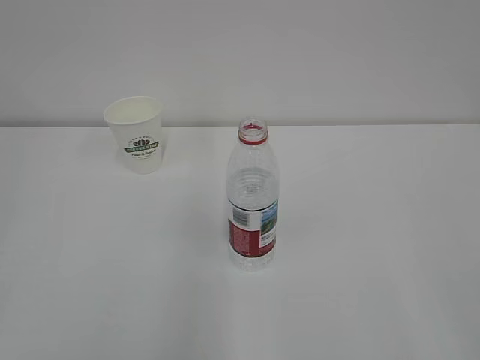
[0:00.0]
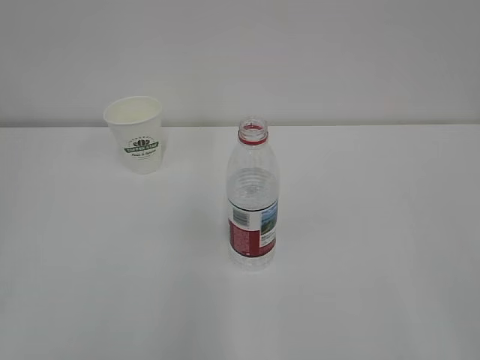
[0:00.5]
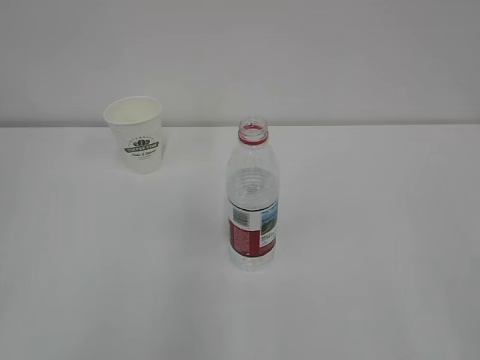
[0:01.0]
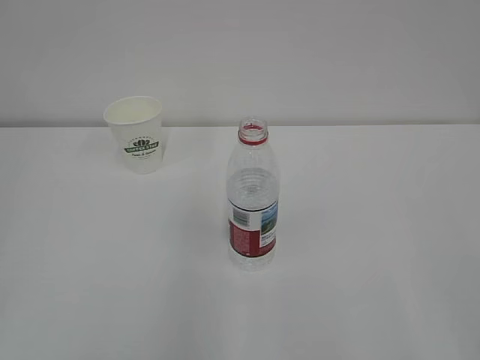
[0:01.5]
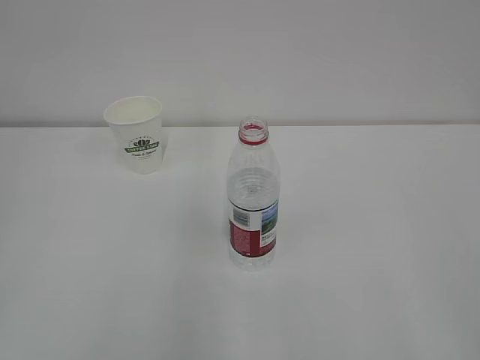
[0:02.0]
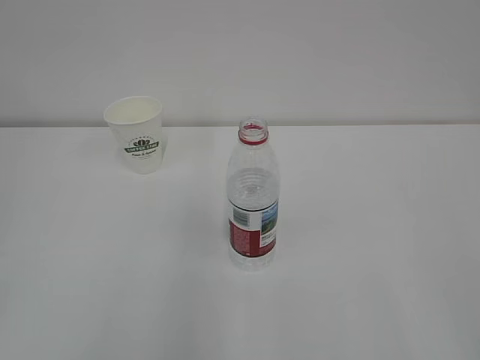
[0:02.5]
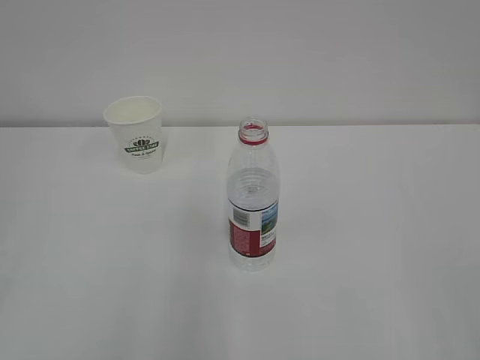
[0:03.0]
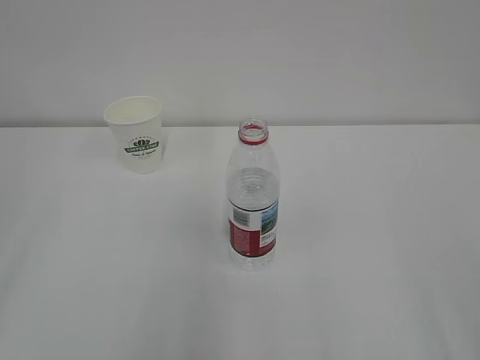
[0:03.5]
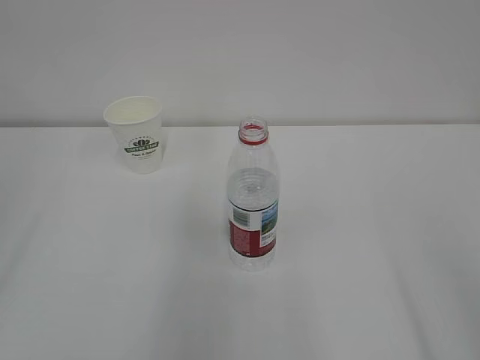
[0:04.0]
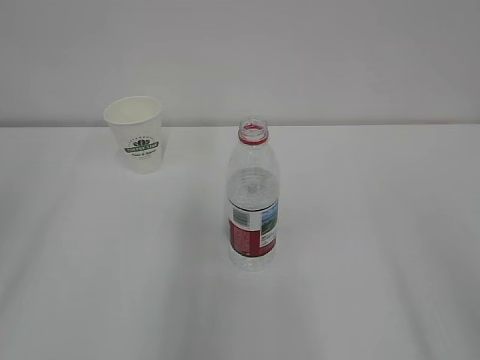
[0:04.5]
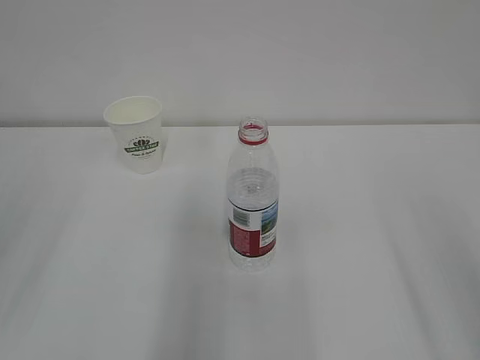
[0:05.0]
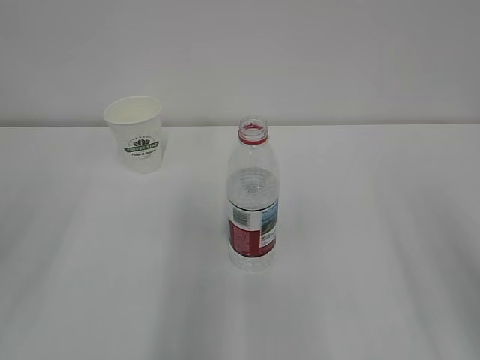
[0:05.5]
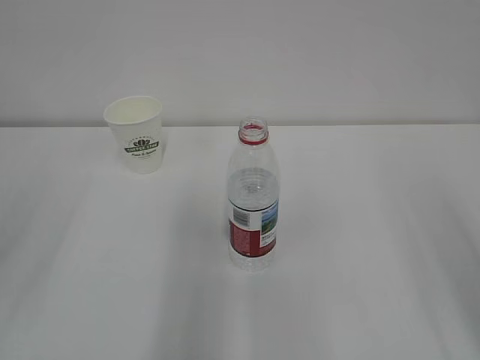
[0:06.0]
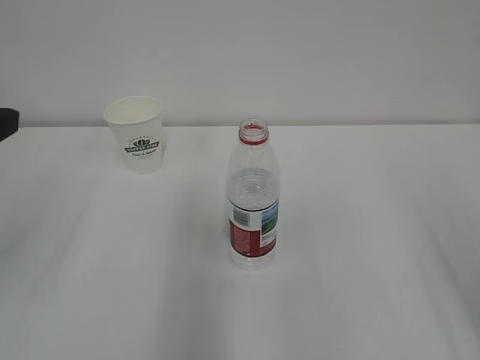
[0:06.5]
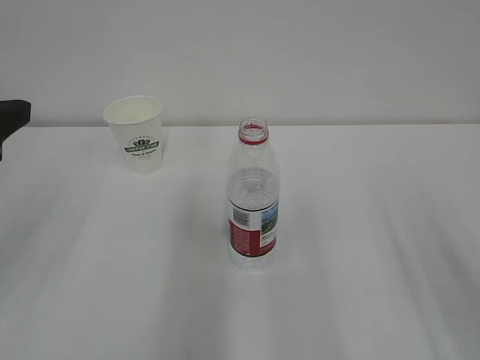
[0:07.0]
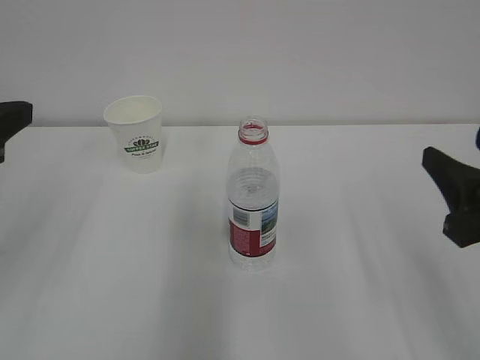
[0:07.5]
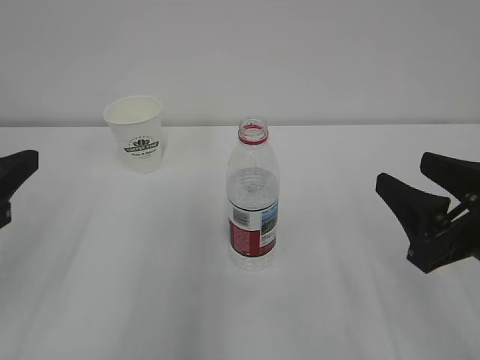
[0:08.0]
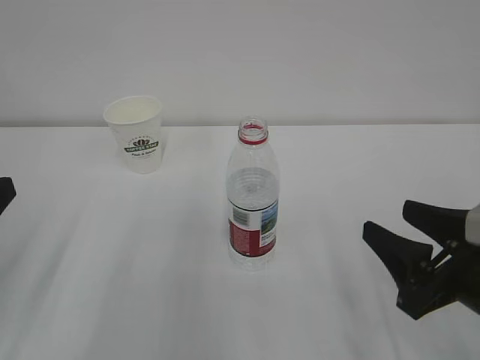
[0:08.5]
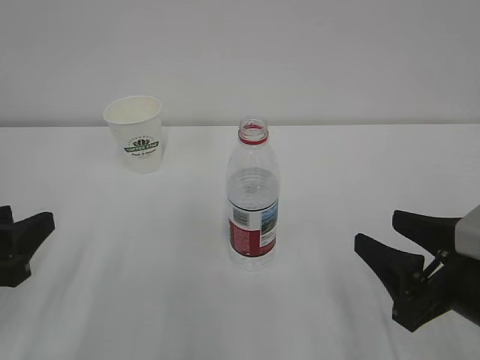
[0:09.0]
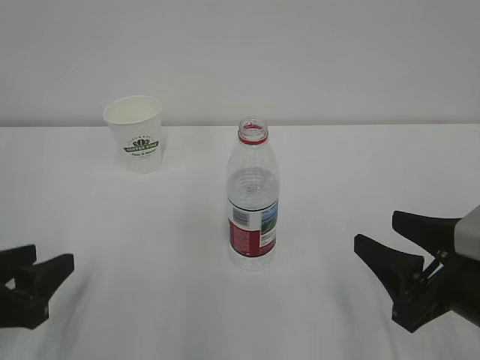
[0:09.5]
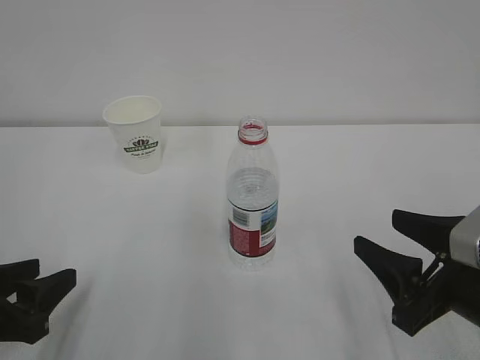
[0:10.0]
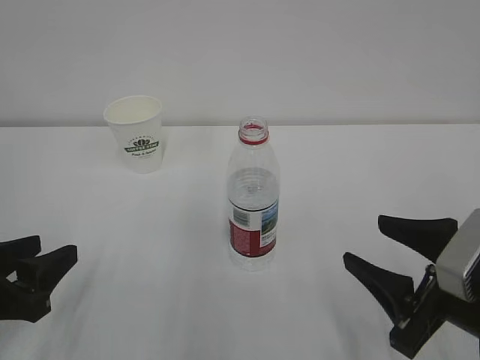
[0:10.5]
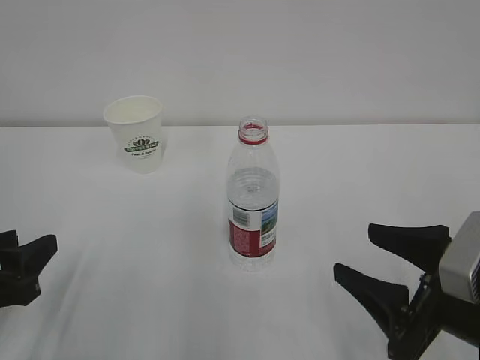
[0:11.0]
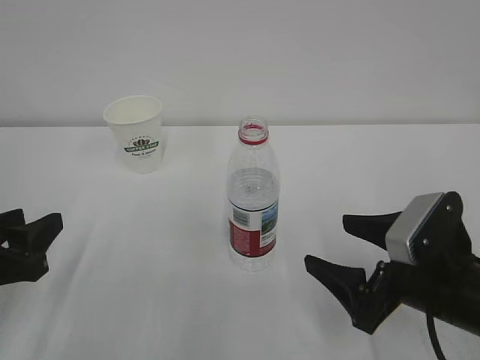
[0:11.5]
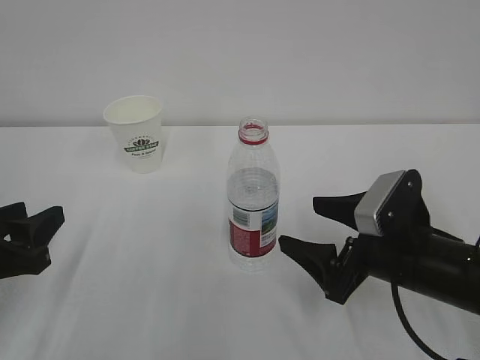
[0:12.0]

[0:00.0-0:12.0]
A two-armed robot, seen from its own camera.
0:06.0 to 0:08.0: The left gripper shifts about 5 cm downward. The right gripper heads downward and to the left, covering approximately 15 cm.
0:08.0 to 0:10.0: The right gripper changes place by roughly 5 cm. The left gripper moves downward, roughly 15 cm.
0:10.0 to 0:12.0: The right gripper is displaced forward by about 5 cm, and opens its fingers.

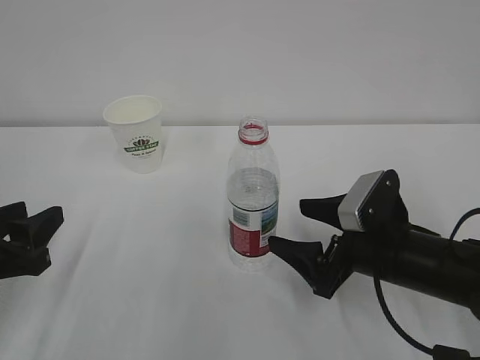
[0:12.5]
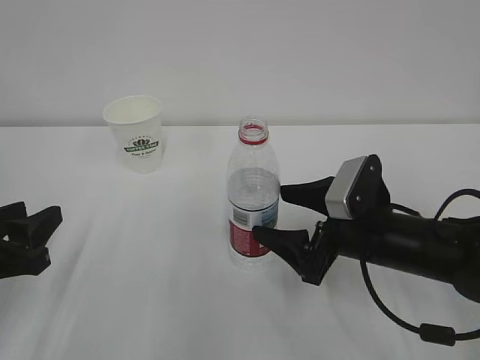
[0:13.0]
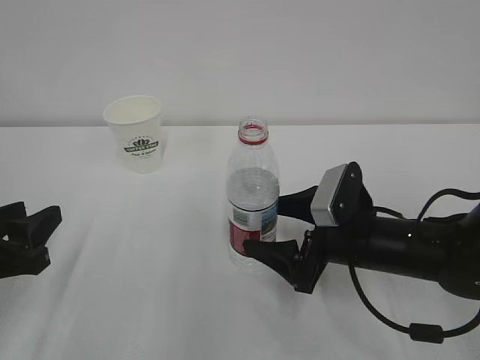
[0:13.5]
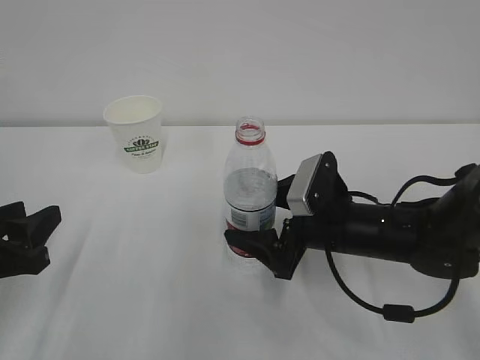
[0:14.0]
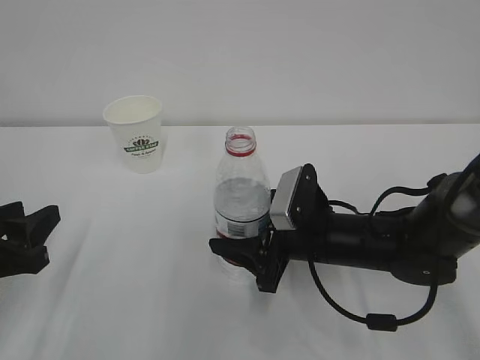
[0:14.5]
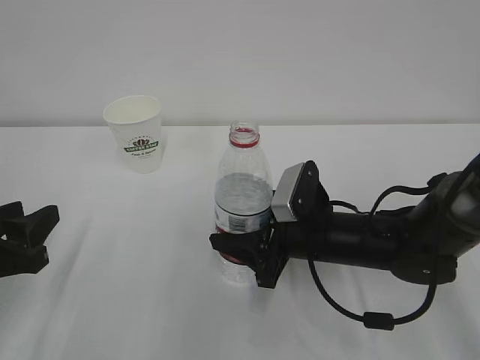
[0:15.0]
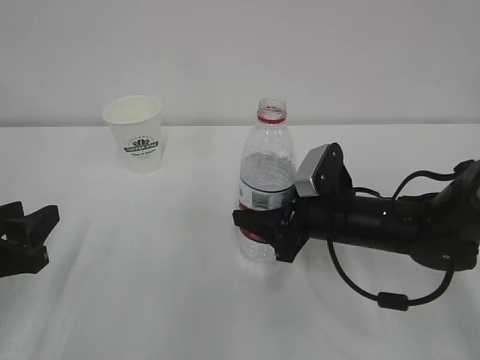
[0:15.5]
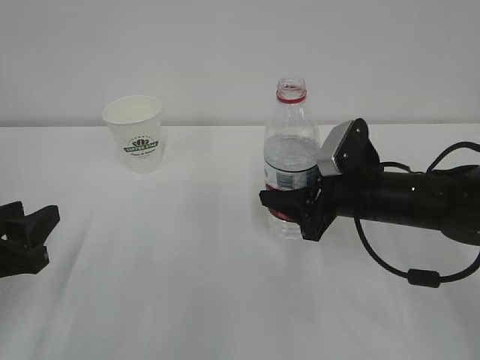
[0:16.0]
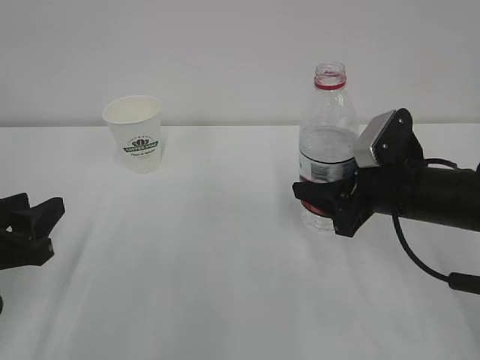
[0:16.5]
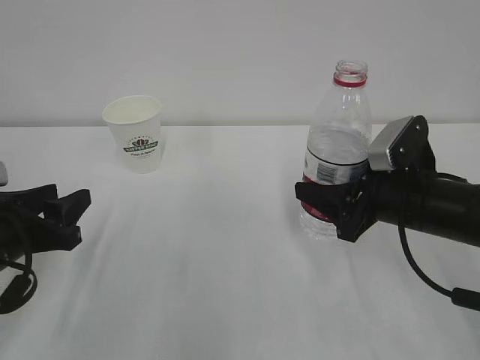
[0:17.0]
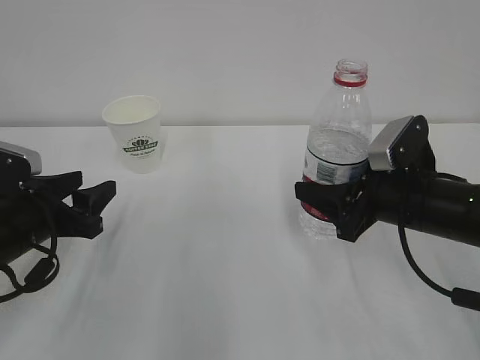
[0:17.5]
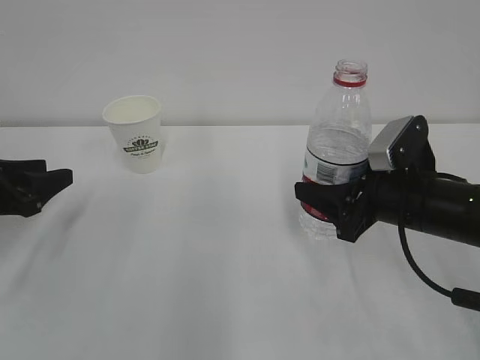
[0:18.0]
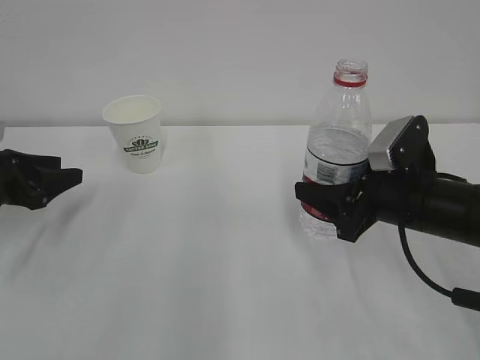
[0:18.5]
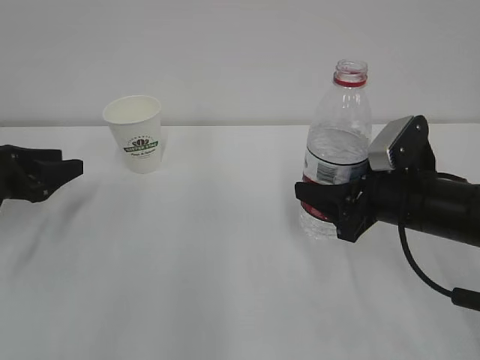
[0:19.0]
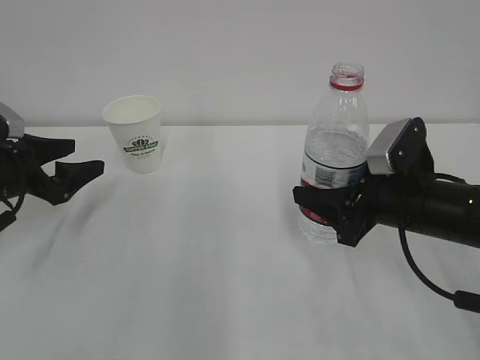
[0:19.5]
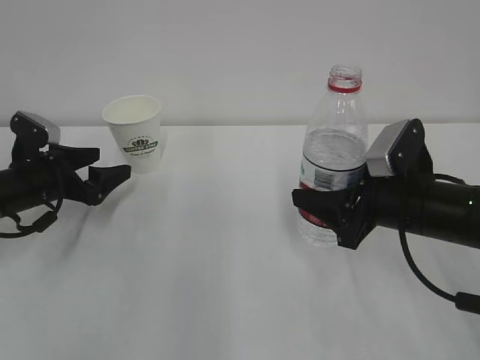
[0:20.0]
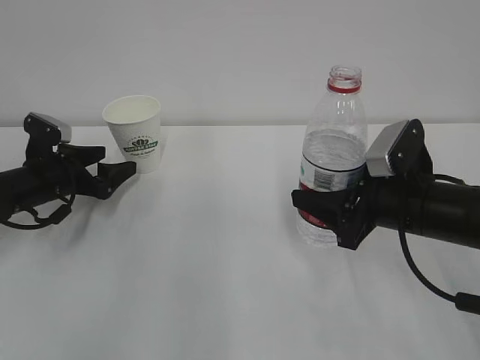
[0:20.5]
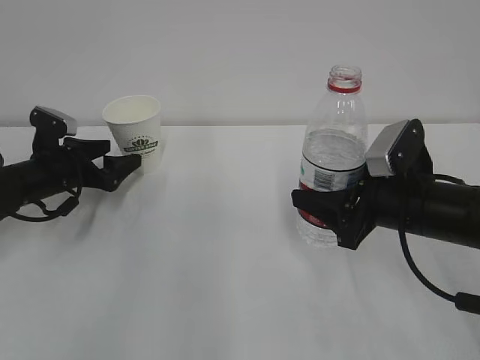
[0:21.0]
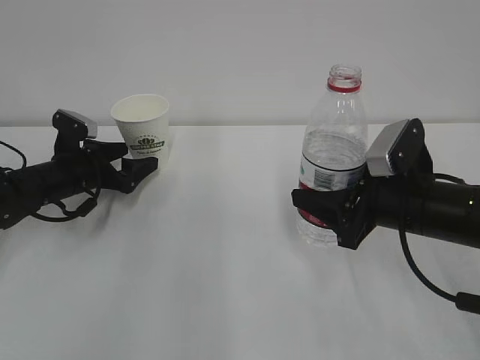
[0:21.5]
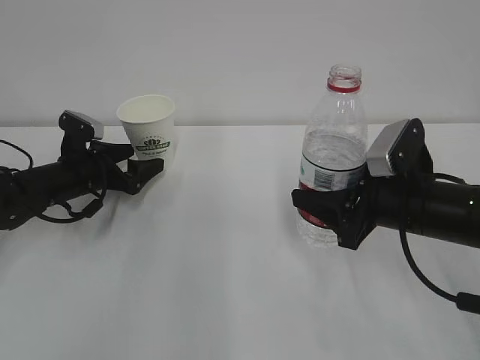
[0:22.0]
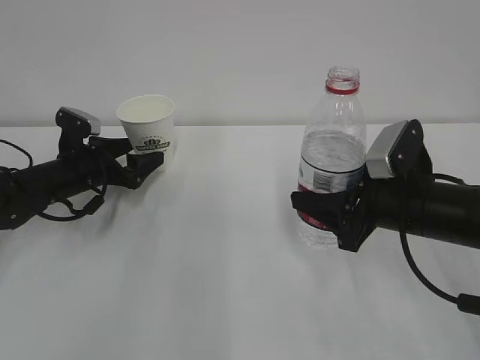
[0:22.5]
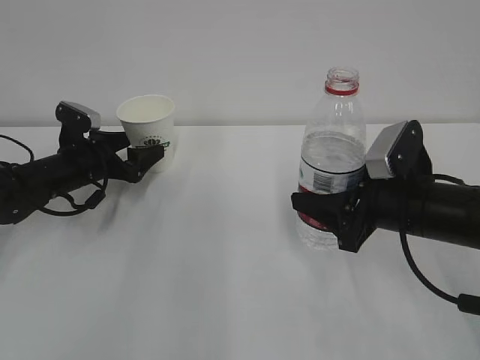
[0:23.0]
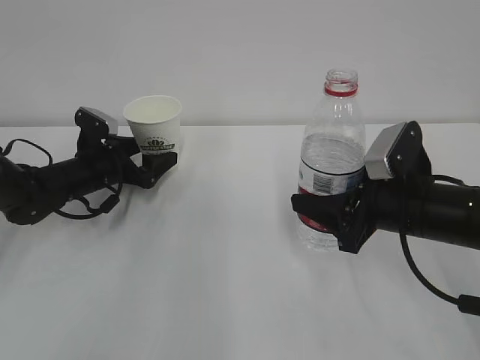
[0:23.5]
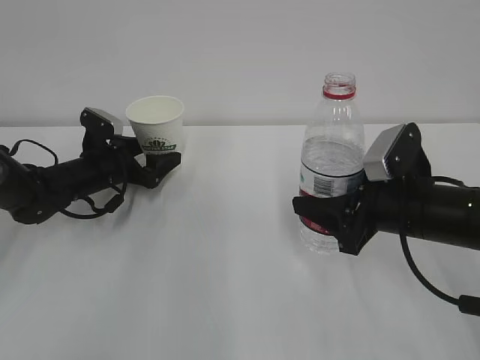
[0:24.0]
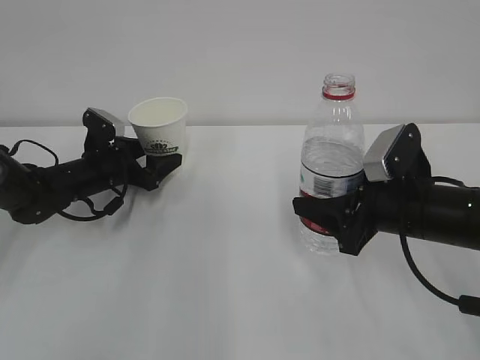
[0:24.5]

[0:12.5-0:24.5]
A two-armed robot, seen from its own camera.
0:12.5 to 0:14.5: The right gripper shifts approximately 5 cm to the left, and closes up.
0:14.5 to 0:16.5: The right gripper is displaced to the right and upward by approximately 10 cm.
0:16.5 to 0:18.5: The left gripper heads forward and to the left, covering about 15 cm.
0:18.5 to 0:20.5: The left gripper moves forward and to the right, roughly 10 cm, and opens its fingers.
0:20.5 to 0:22.5: There are only small adjustments of the grippers.
0:22.5 to 0:24.5: There are only small adjustments of the grippers.

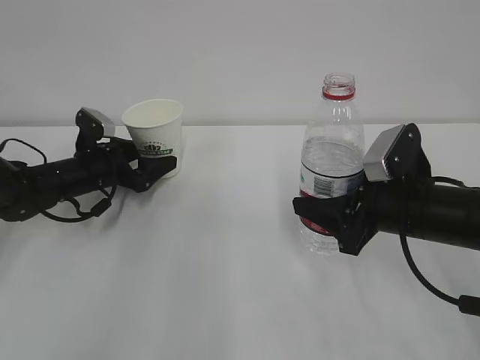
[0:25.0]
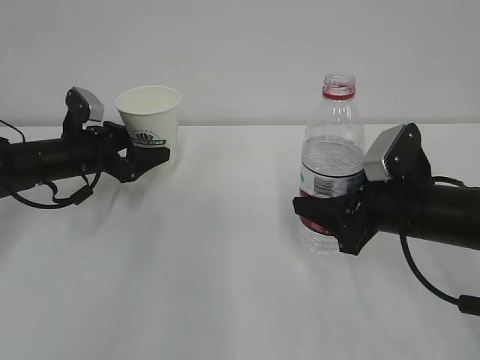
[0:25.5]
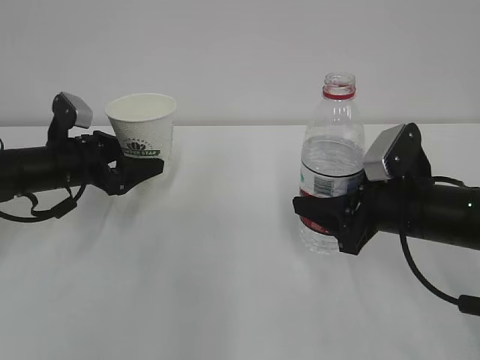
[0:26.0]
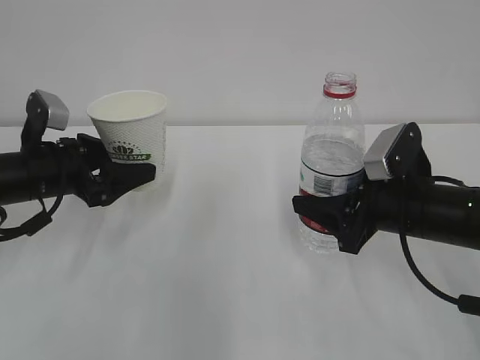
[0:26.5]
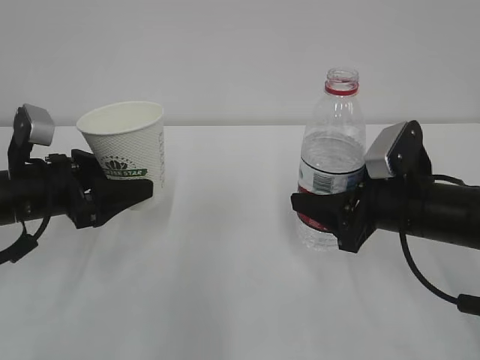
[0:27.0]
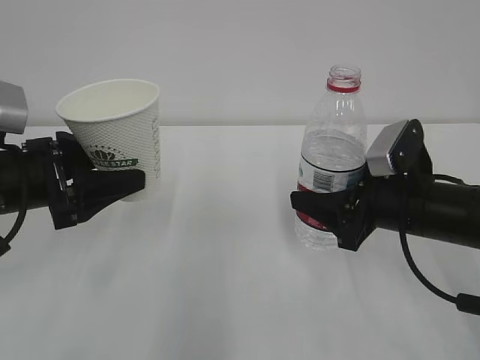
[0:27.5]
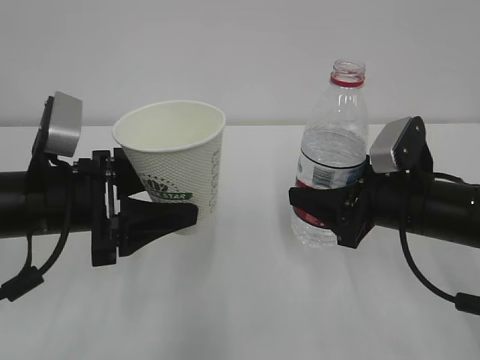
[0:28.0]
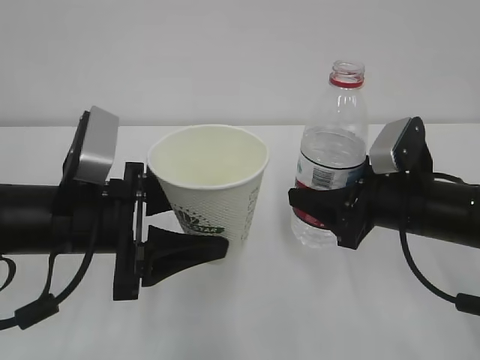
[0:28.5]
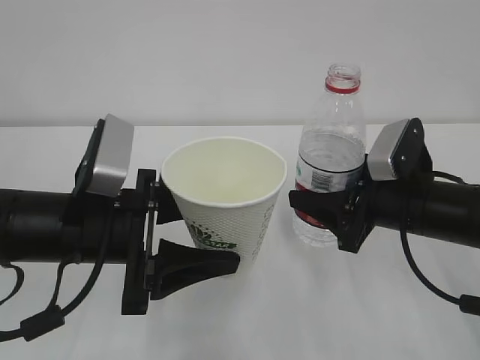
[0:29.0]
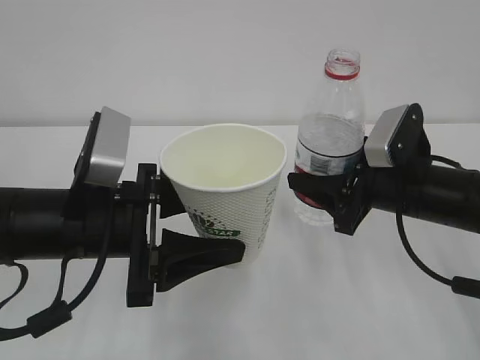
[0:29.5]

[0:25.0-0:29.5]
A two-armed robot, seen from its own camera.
0:25.0 to 0:27.0: The left gripper moves backward and upward, roughly 15 cm.
0:27.0 to 0:29.5: The left gripper moves to the right and backward, some 15 cm.
